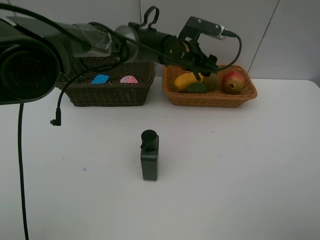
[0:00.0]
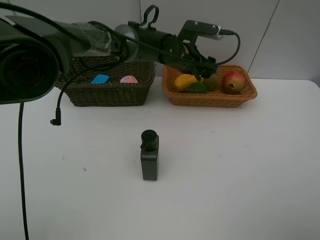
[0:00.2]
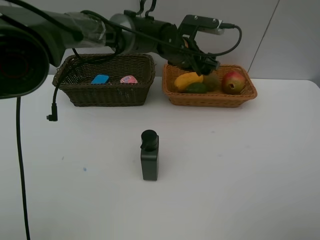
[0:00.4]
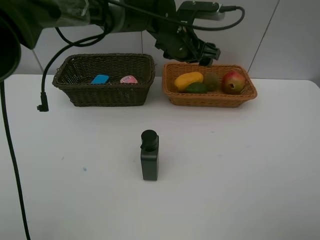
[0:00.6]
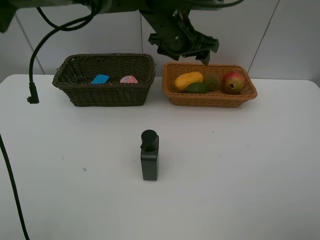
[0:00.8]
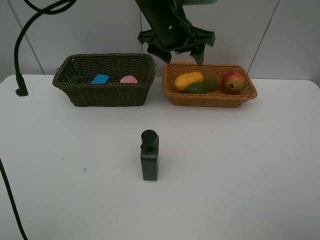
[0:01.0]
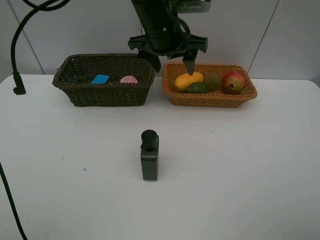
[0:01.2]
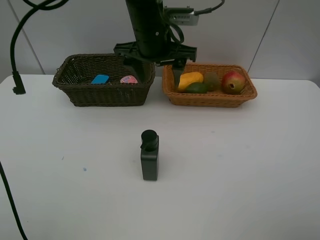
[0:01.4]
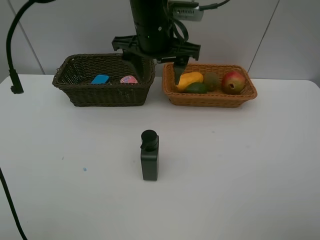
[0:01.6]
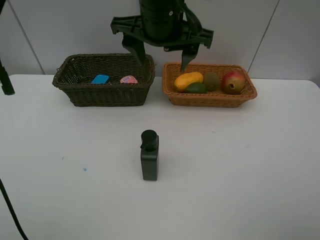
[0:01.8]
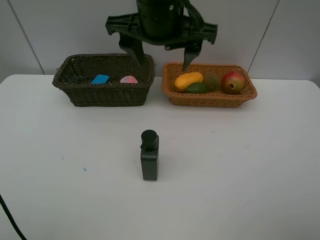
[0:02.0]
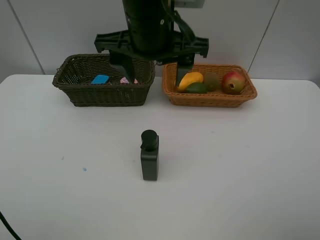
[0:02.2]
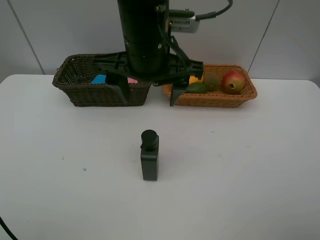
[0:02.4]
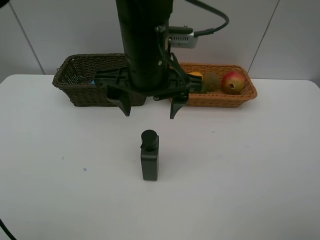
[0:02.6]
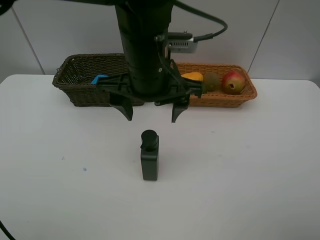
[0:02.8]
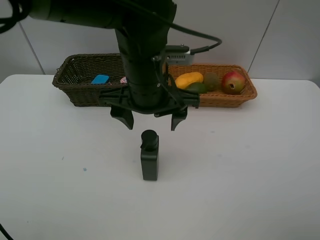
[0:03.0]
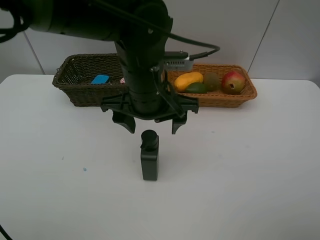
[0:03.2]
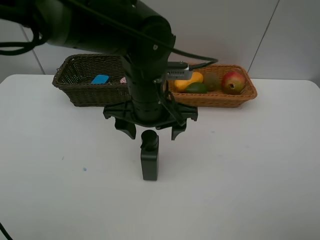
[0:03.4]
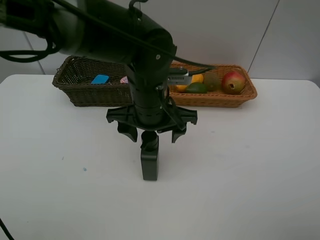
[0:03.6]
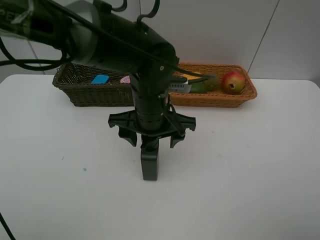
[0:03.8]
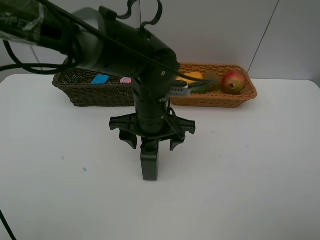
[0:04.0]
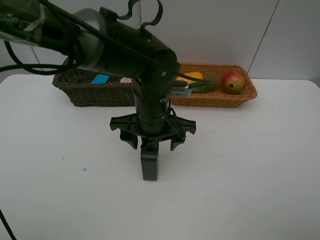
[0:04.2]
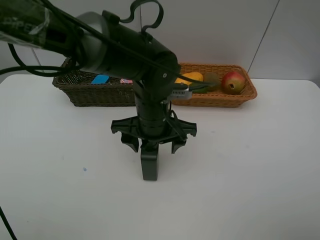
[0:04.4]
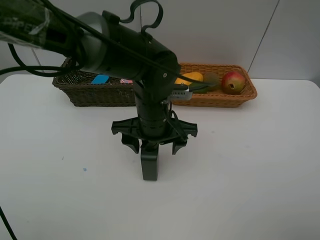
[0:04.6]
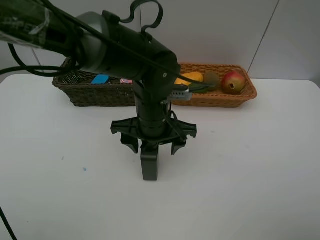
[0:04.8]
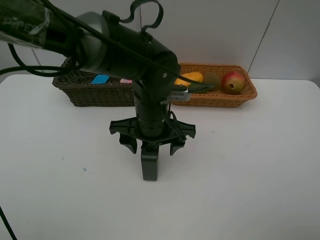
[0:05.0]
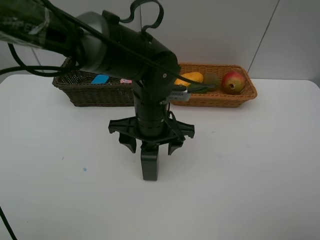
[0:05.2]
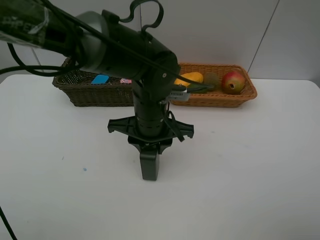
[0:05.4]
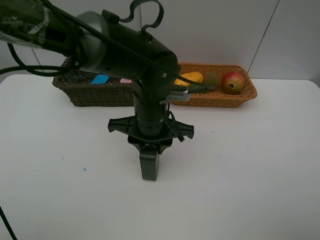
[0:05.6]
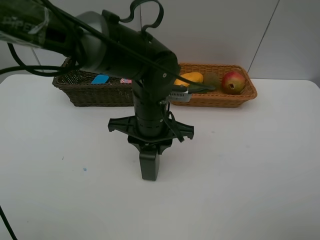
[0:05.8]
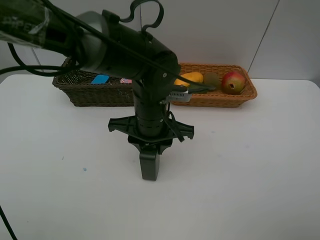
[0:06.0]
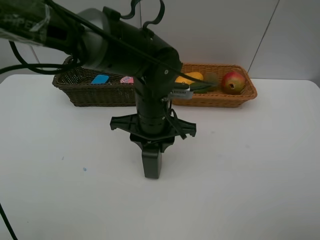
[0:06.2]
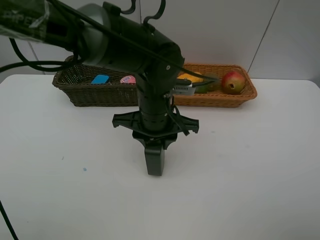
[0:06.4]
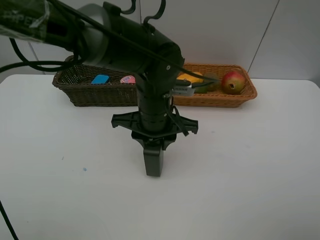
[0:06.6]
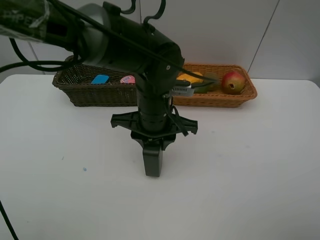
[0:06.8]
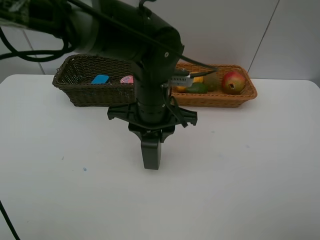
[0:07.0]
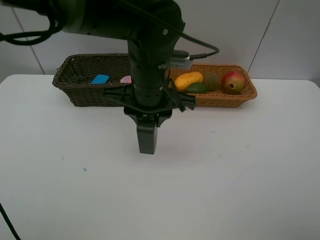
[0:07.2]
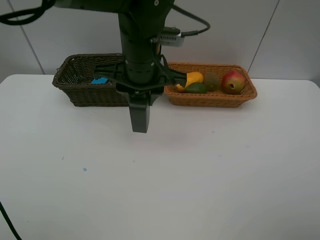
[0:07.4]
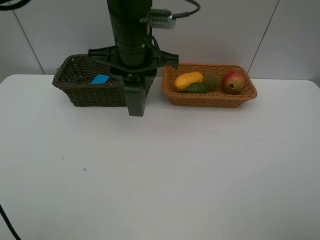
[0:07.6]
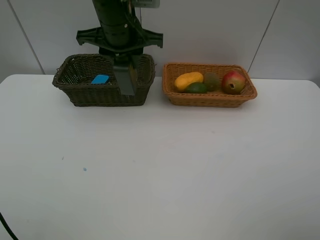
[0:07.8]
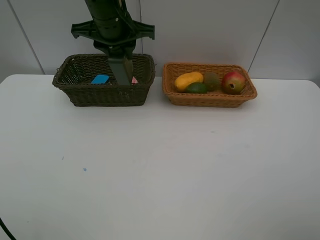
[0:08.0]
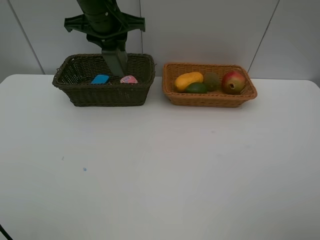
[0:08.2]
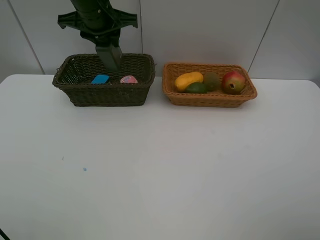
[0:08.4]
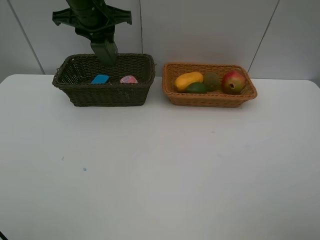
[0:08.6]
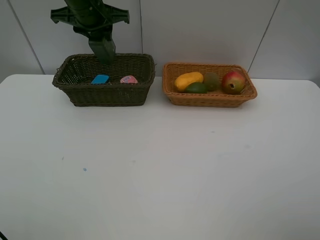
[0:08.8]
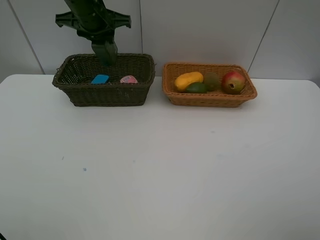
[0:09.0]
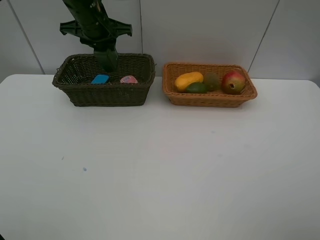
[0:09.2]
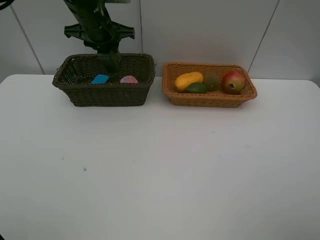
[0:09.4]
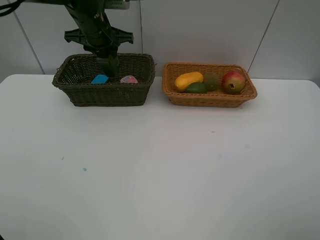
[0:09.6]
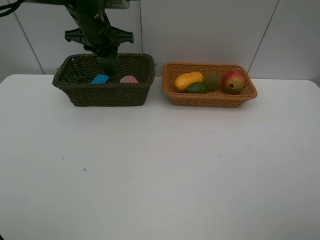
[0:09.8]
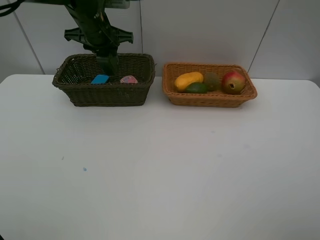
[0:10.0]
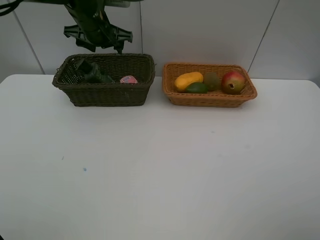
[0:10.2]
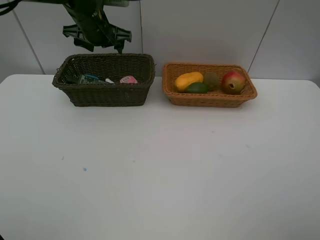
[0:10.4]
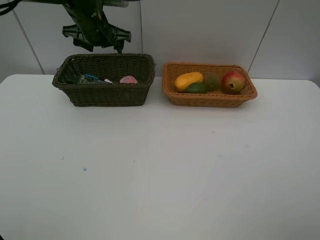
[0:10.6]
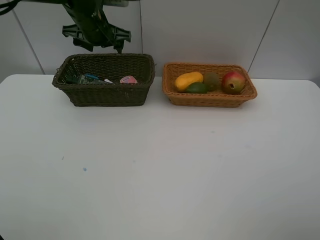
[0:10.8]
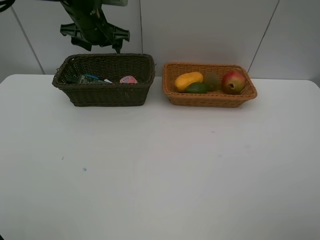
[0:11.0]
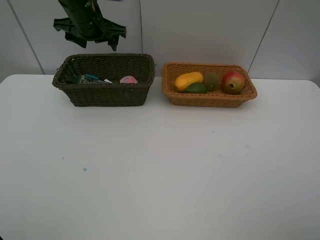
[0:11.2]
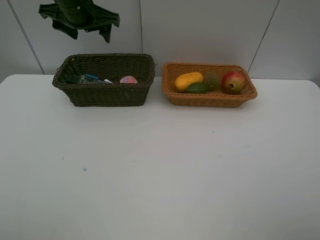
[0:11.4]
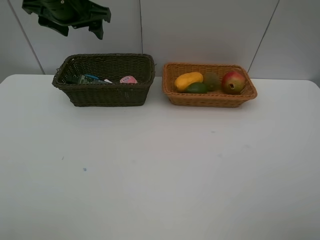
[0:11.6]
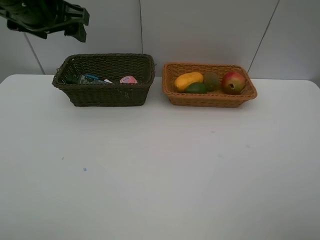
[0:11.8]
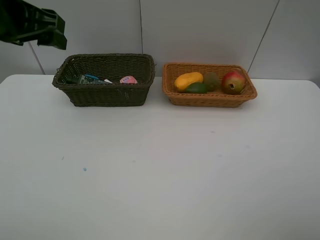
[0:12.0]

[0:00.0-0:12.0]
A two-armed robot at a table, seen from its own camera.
Task of the whole recording: Place multiple objects separately in different baskets.
Step, 0:00.0 to 0:07.0: Pick up the hard facial cleanser with left gripper.
Step, 0:07.2 to 0:10.4: Place the hard facial cleanser in the dark basket with left gripper.
0:00.0 to 0:01.6: The left gripper heads upward, backward and to the left, covering approximately 15 cm.
0:01.6 to 0:03.0: The left gripper is displaced backward and downward by some 10 cm.
0:03.0 to 0:04.4: The left gripper goes approximately 5 cm downward.
0:04.4 to 0:06.0: The left gripper closes up.
0:06.0 to 0:07.6: The left gripper moves upward and forward, roughly 15 cm.
0:07.6 to 0:09.0: The left gripper travels forward and to the left by approximately 15 cm.
0:09.0 to 0:10.4: The left gripper opens its fingers.
0:10.4 to 0:12.0: The left gripper heads backward and upward, covering roughly 20 cm.

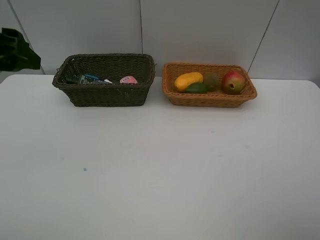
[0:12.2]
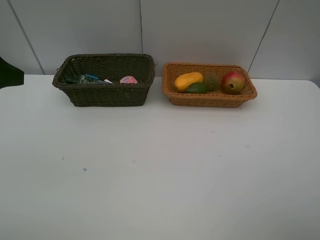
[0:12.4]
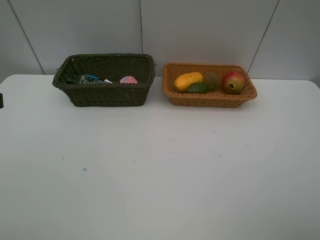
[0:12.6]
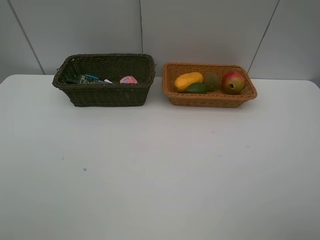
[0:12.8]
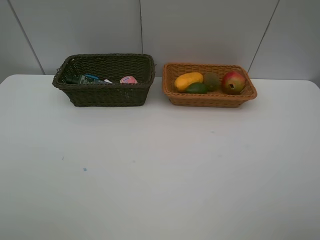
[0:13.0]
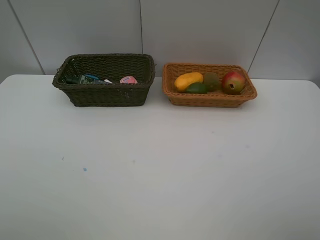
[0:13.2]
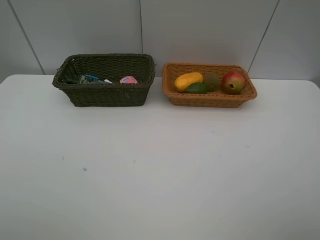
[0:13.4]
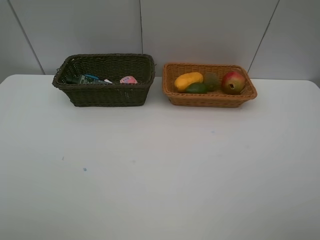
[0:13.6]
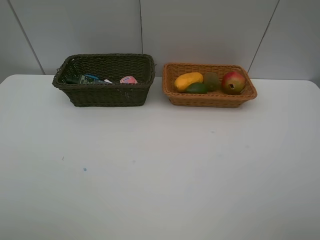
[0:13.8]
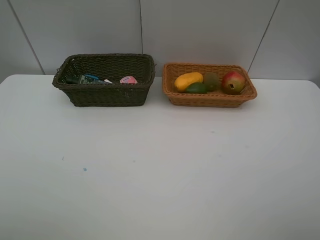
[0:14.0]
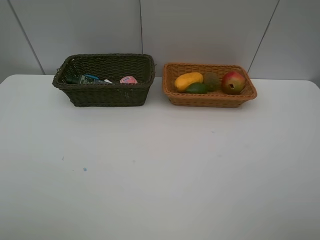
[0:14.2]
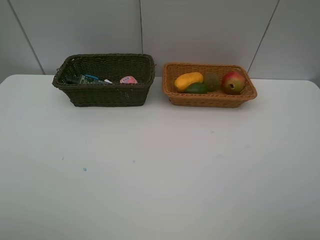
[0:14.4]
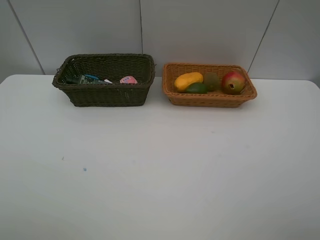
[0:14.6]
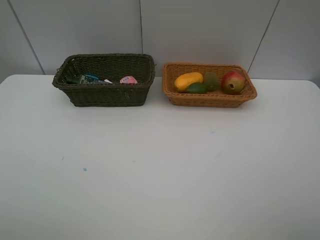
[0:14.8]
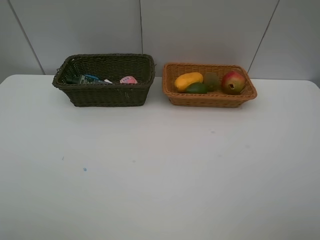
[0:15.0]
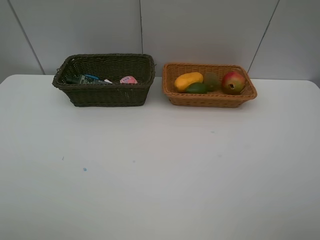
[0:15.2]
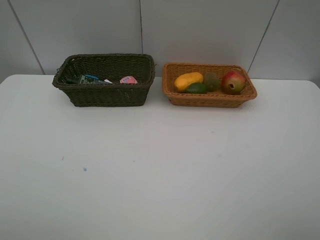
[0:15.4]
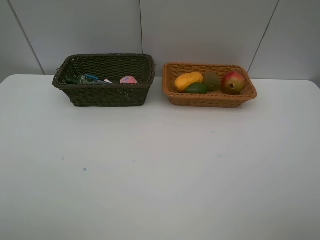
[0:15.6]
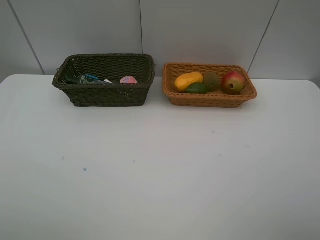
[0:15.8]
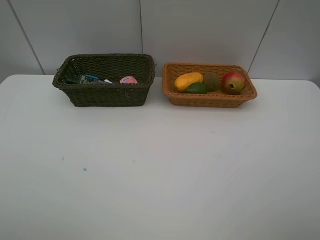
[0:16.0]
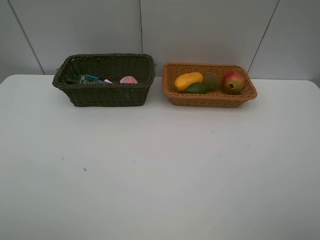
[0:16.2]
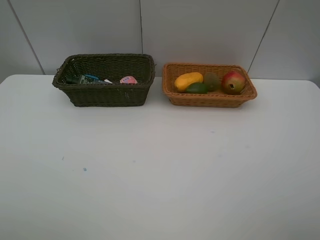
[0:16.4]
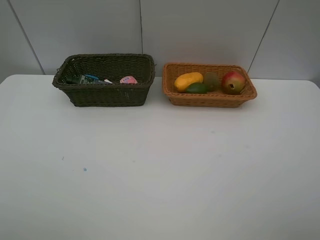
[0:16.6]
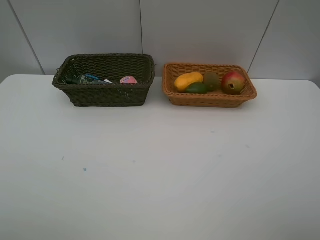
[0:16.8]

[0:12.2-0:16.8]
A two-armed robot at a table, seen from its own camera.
Task of the whole recording: Place multiple objects separately in different baskets.
0:12.2 to 0:13.8: The left gripper goes approximately 15 cm backward.
0:15.2 to 0:16.8: The two grippers keep their place.

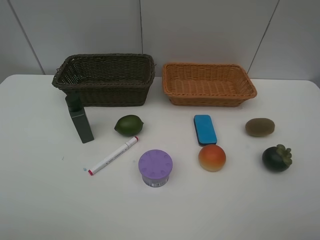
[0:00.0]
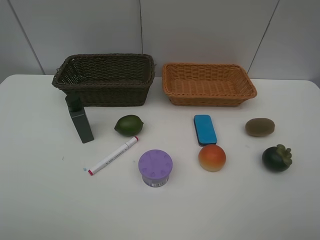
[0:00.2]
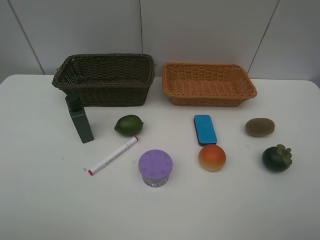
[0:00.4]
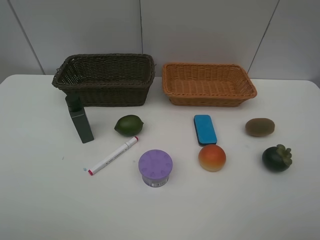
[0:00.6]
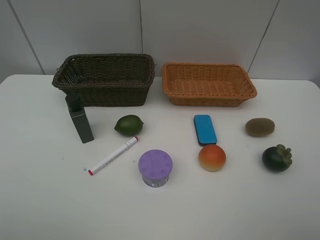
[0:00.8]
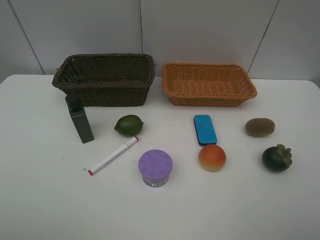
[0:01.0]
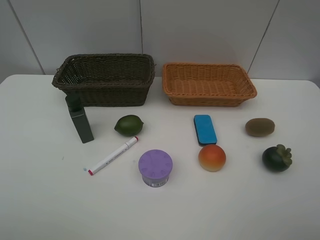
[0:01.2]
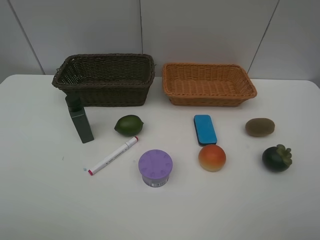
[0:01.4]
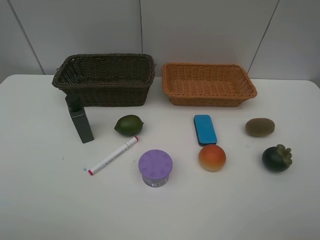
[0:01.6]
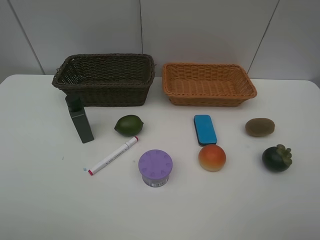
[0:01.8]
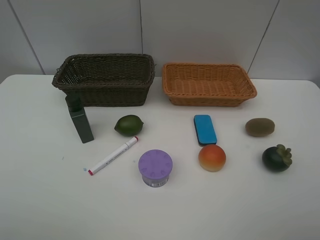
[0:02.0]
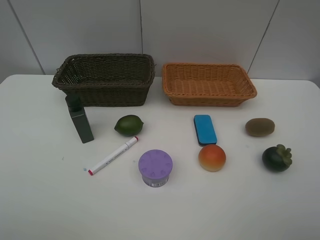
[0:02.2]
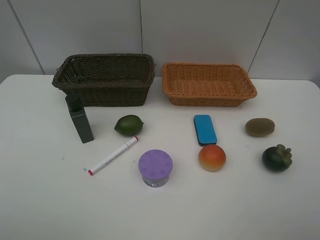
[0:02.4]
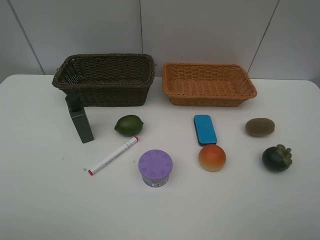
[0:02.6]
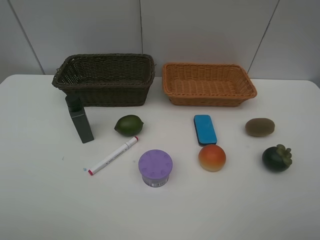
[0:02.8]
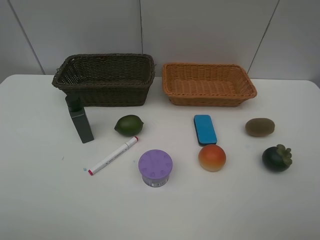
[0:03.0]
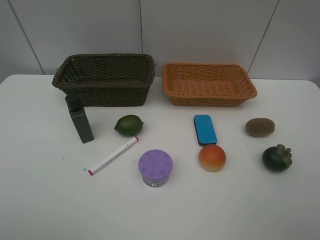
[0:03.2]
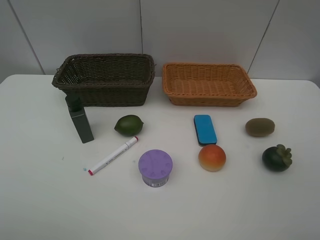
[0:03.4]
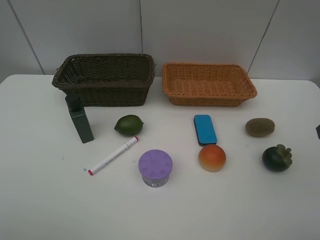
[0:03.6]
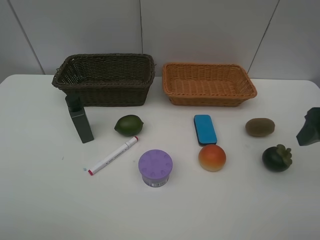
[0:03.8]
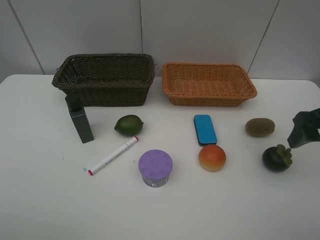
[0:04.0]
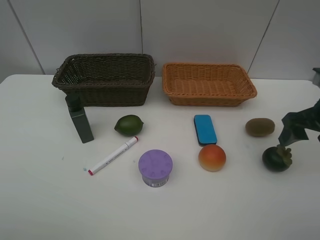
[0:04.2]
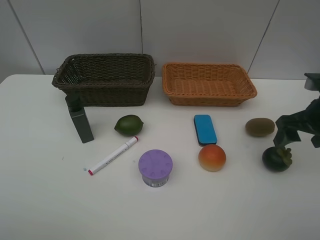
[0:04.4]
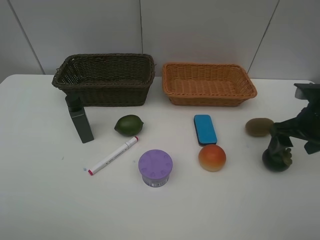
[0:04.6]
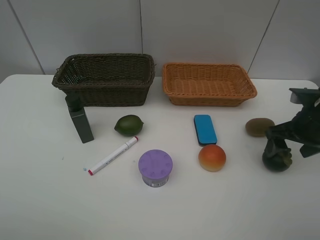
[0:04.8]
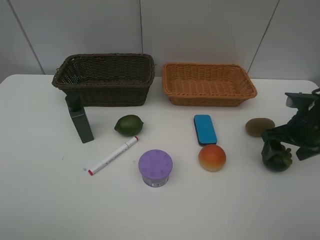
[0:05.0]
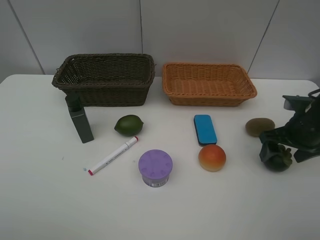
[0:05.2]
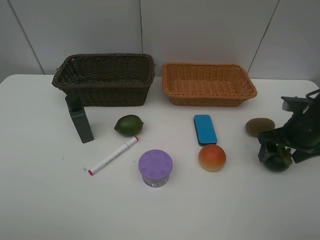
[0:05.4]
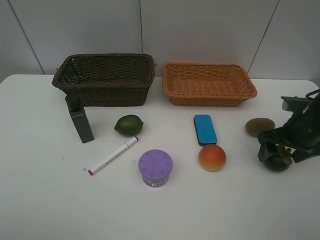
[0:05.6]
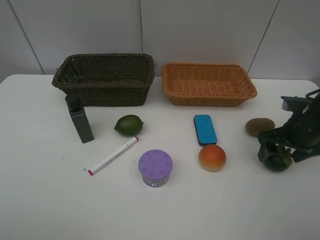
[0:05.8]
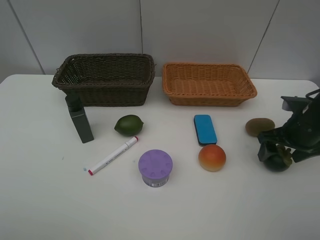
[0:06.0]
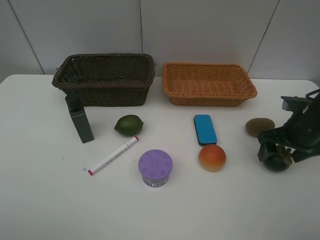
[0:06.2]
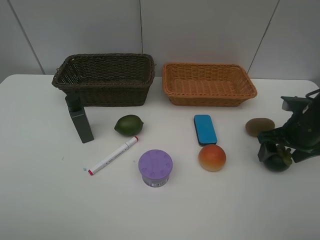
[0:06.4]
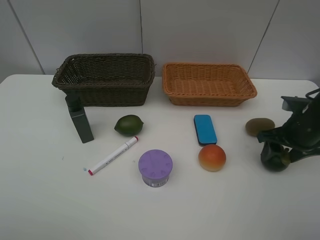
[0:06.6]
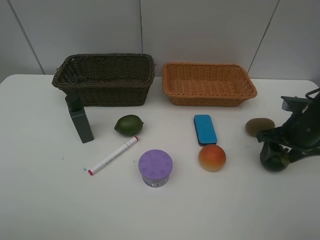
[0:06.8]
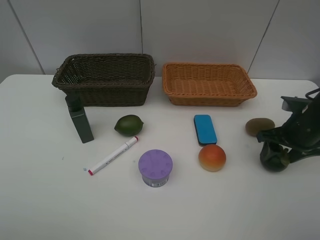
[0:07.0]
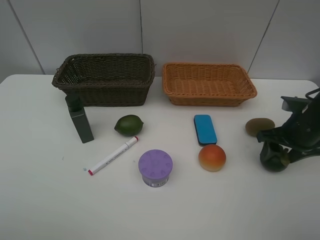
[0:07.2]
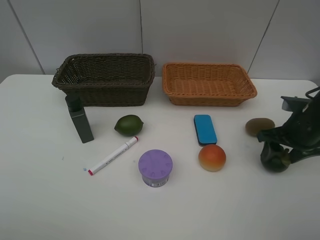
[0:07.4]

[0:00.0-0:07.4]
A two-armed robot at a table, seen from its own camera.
Task of the whole recording: Place multiple objects separately in different baskets.
0:00.0 to 0:01.4: Neither gripper changes place.
0:03.0 to 0:04.4: The right gripper shifts approximately 20 cm forward and downward.
0:04.4 to 0:06.0: The right gripper moves downward, roughly 5 cm.
